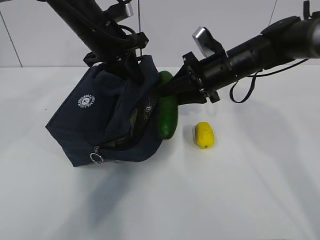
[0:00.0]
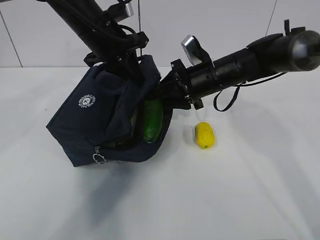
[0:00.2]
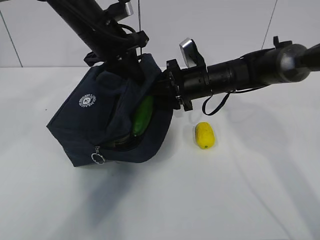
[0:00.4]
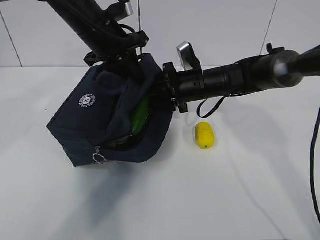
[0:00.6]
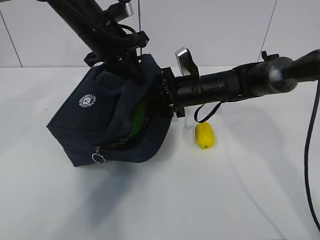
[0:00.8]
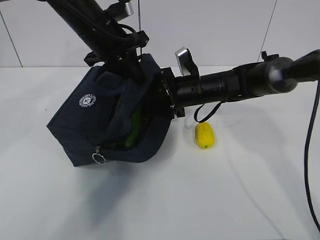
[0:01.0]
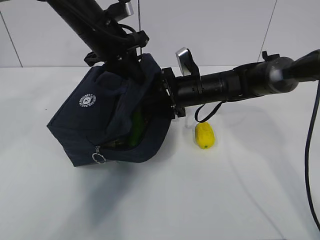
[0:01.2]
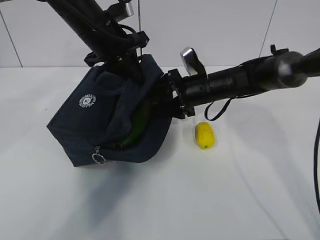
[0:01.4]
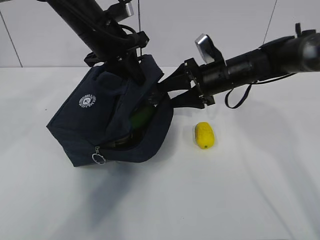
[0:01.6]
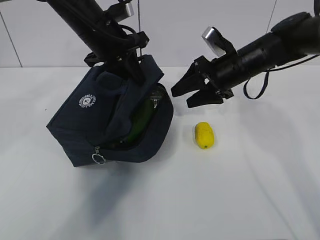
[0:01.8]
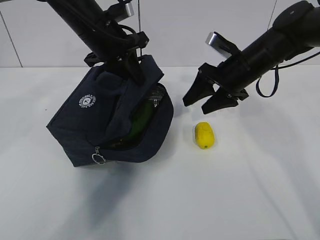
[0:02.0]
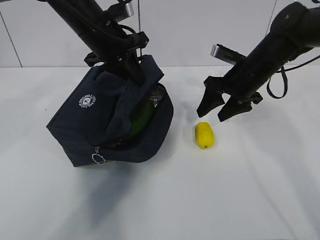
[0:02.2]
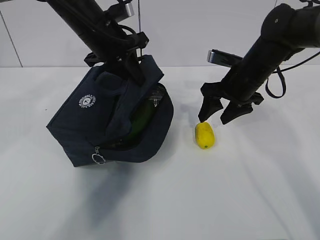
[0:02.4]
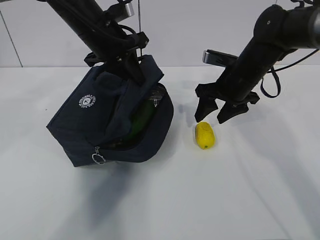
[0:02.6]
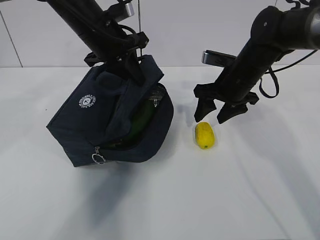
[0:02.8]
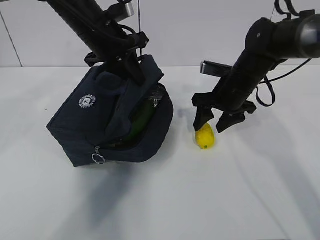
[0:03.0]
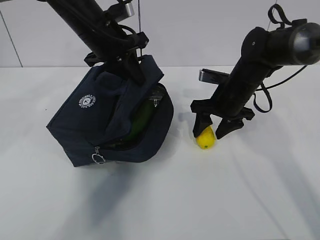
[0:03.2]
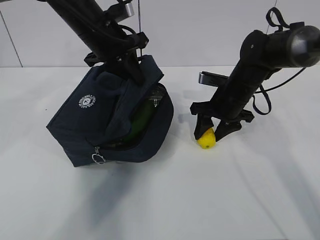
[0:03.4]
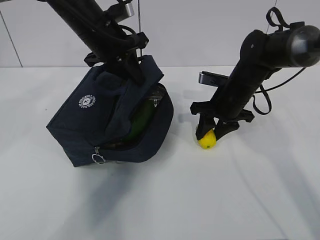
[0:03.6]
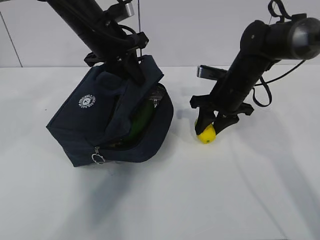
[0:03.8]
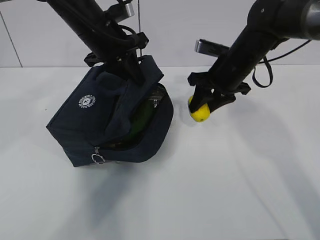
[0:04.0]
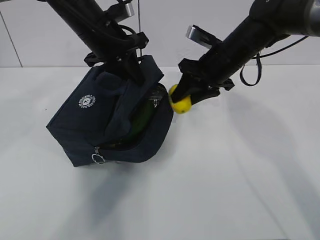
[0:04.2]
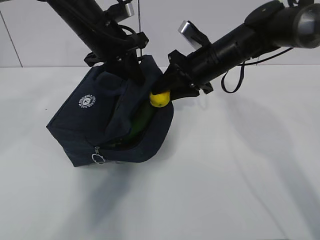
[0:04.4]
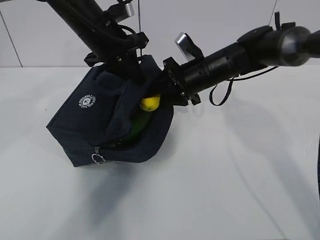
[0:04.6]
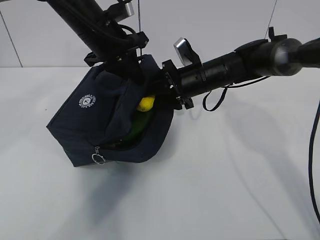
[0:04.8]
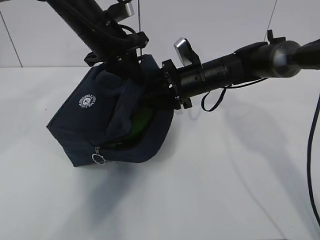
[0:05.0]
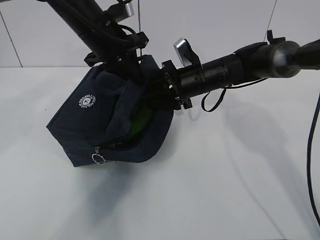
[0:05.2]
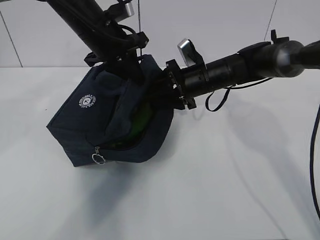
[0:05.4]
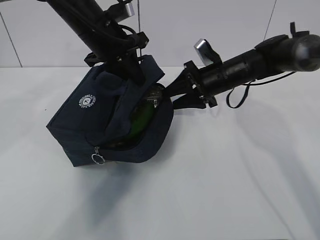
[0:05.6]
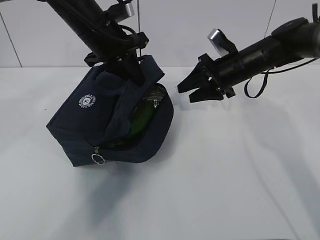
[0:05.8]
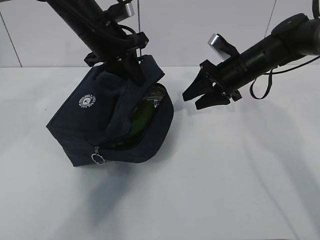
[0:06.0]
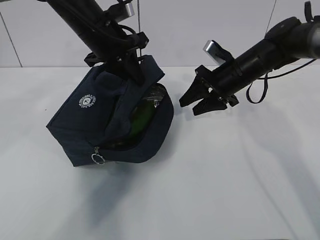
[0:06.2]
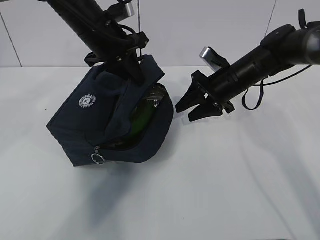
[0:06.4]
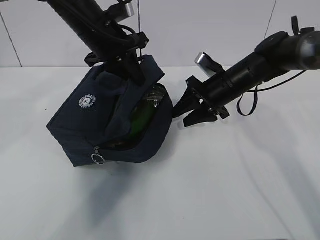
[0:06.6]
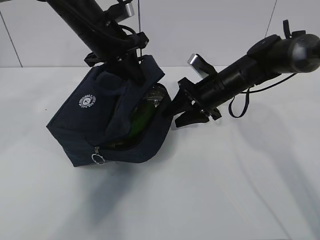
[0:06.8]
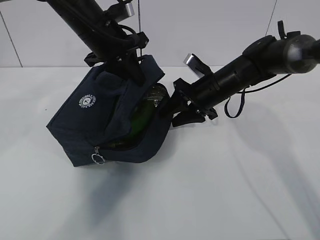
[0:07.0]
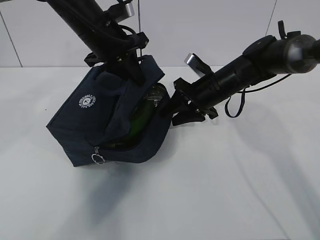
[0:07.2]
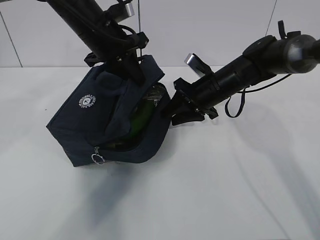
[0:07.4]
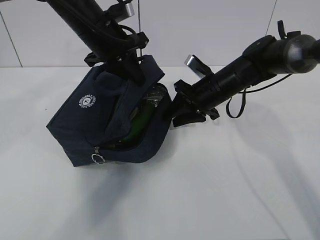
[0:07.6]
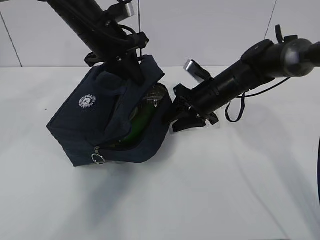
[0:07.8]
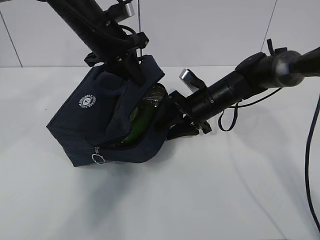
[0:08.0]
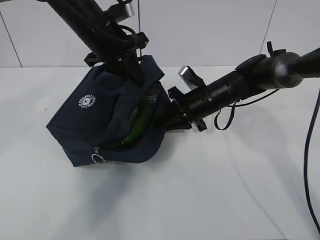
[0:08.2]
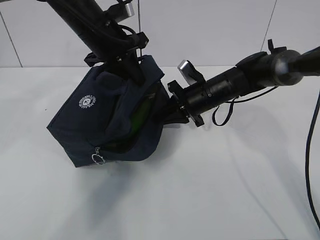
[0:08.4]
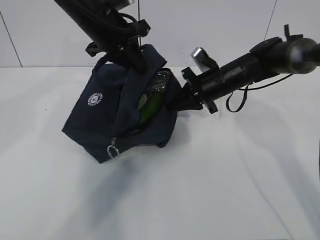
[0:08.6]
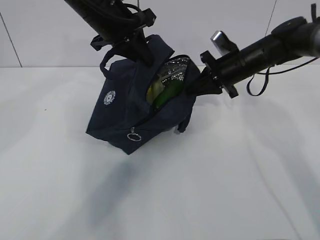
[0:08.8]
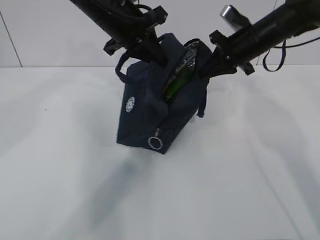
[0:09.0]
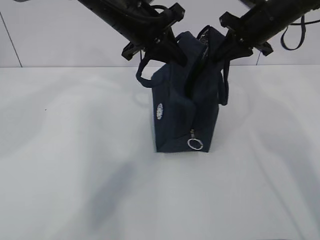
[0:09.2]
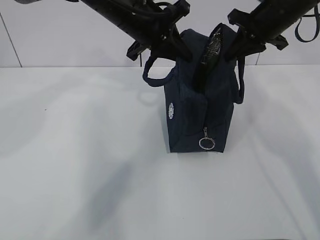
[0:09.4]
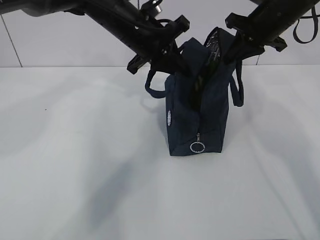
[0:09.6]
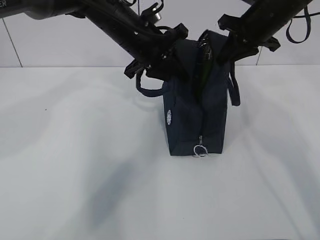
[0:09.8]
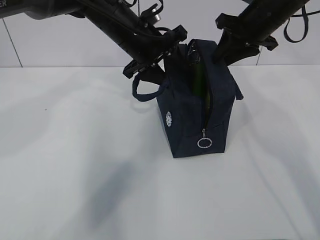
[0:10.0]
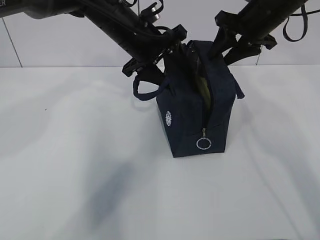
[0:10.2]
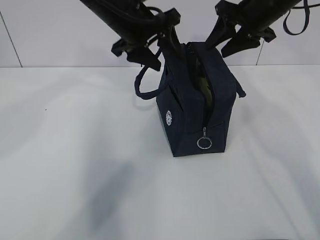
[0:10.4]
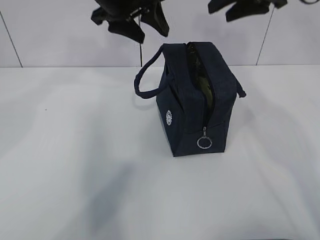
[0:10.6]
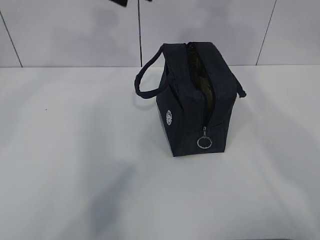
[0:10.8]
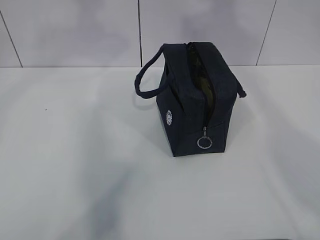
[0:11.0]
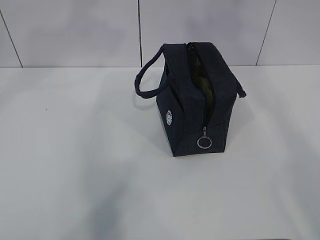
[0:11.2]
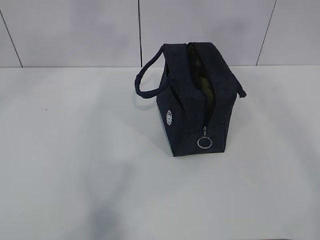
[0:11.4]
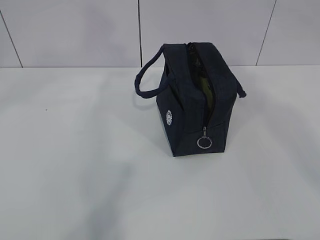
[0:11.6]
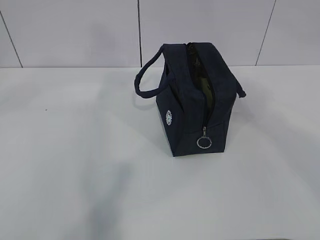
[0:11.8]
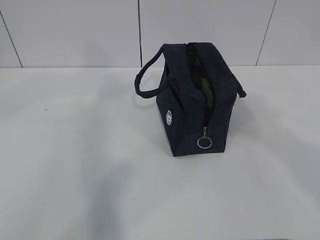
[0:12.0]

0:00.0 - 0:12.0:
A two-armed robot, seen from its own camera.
Step, 0:00.4 - 0:02.6: Grab the lunch bag with your right hand.
Step, 0:02.8 - 0:04.4: Stand the lunch bag upright with your right hand.
0:00.0 - 0:01.6: The right gripper opens up.
0:03.0 - 0:04.4: The right gripper goes some 5 cm upward.
0:04.4 - 0:06.0: The right gripper goes roughly 5 cm to the right.
0:06.0 - 0:07.6: The right gripper changes place by approximately 5 cm.
0:07.6 - 0:09.0: The right gripper shifts about 10 cm upward and to the right, and closes its fingers.
0:09.0 - 0:10.4: The left gripper opens; the right gripper heads upward, covering approximately 5 cm, and opens.
0:10.4 - 0:12.0: The right gripper heads backward, covering roughly 40 cm. Meanwhile the left gripper heads backward and upward, covering about 25 cm.

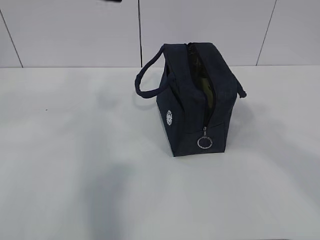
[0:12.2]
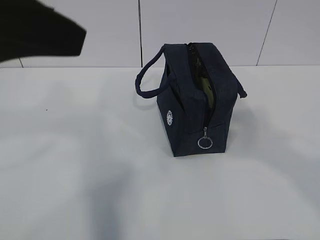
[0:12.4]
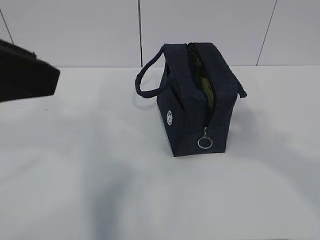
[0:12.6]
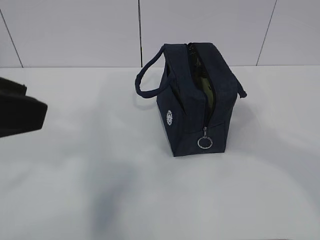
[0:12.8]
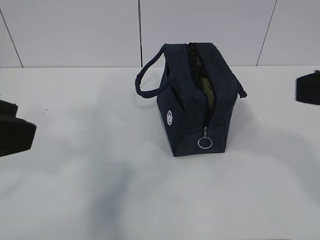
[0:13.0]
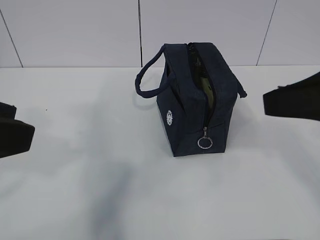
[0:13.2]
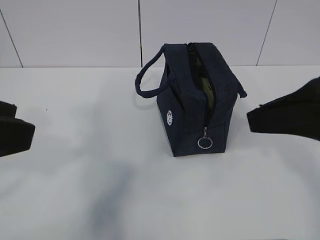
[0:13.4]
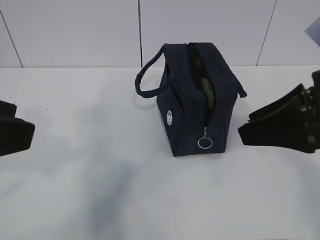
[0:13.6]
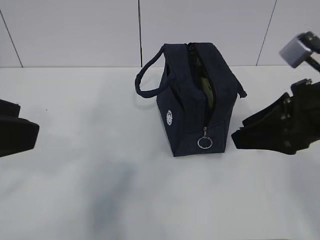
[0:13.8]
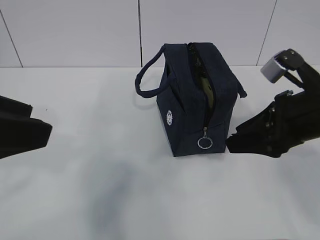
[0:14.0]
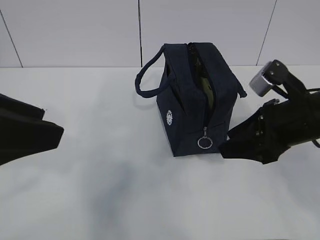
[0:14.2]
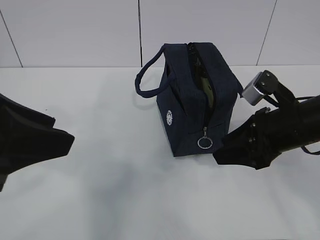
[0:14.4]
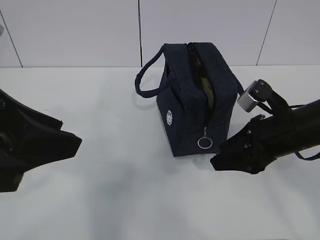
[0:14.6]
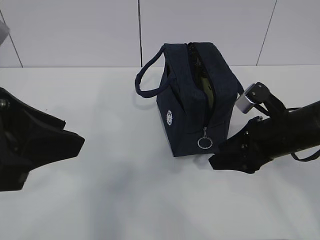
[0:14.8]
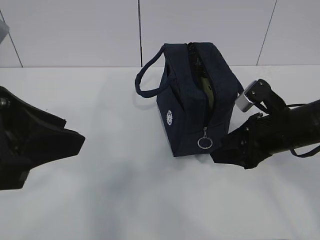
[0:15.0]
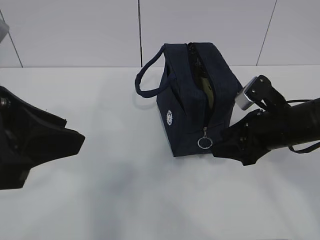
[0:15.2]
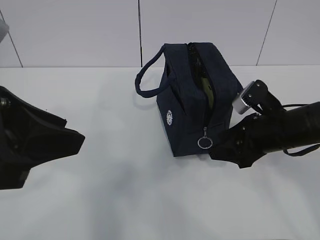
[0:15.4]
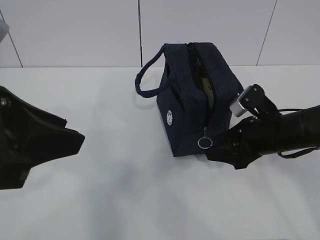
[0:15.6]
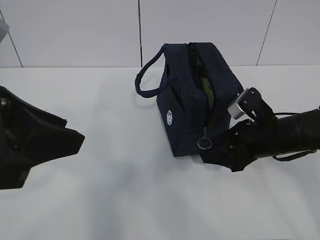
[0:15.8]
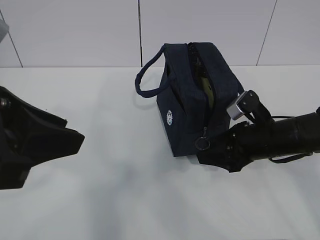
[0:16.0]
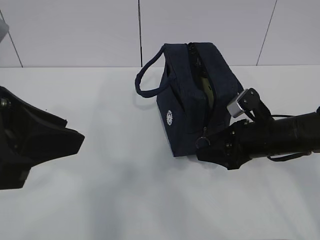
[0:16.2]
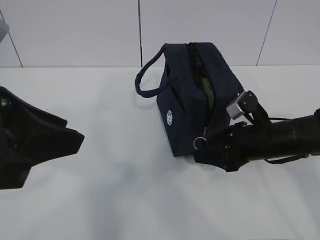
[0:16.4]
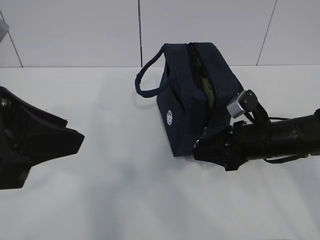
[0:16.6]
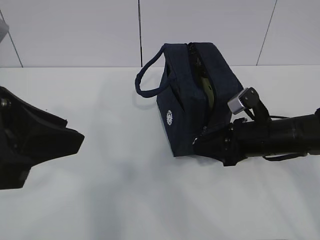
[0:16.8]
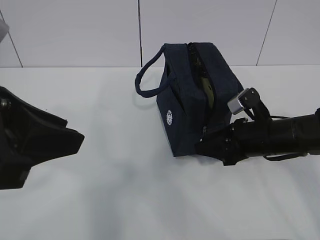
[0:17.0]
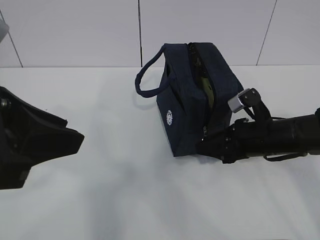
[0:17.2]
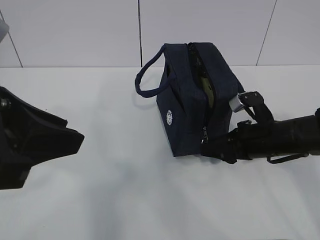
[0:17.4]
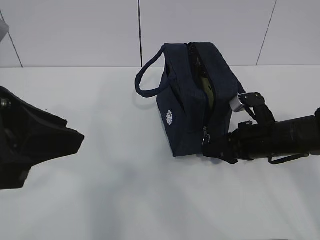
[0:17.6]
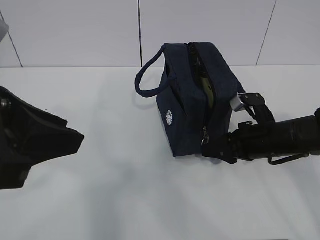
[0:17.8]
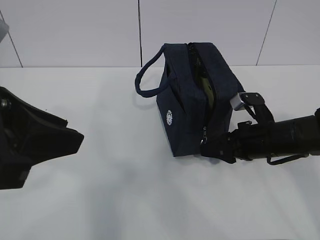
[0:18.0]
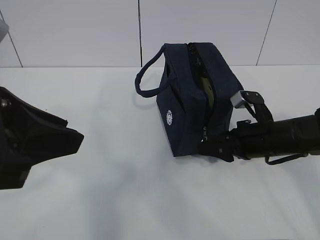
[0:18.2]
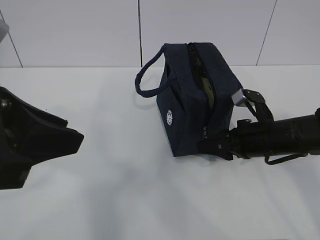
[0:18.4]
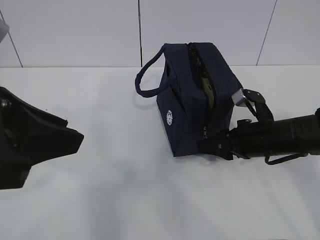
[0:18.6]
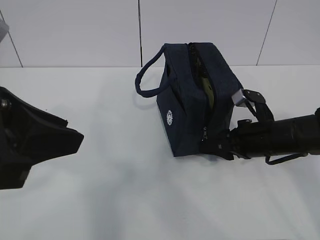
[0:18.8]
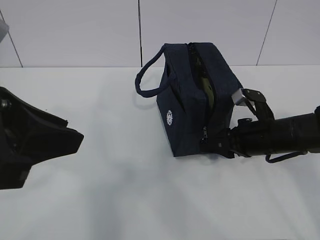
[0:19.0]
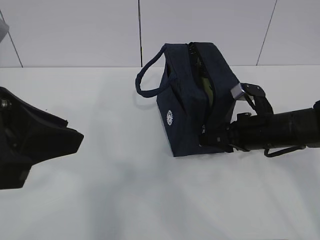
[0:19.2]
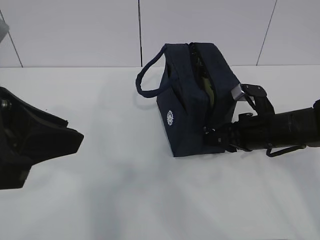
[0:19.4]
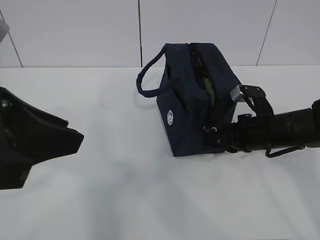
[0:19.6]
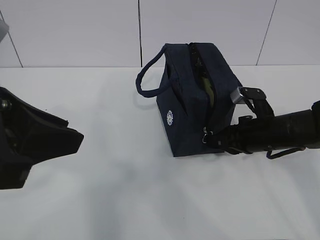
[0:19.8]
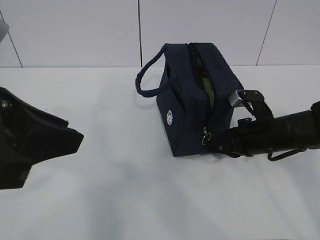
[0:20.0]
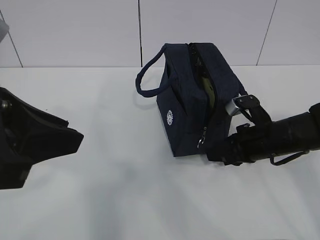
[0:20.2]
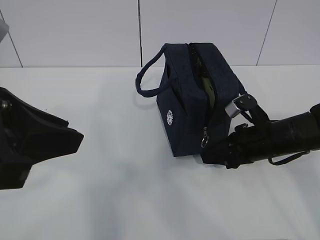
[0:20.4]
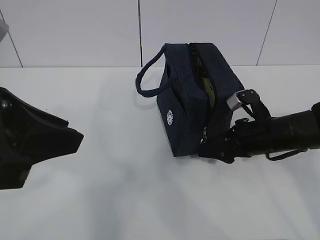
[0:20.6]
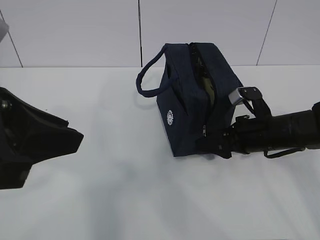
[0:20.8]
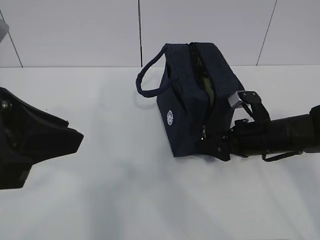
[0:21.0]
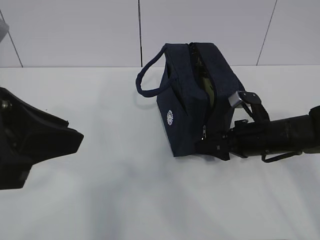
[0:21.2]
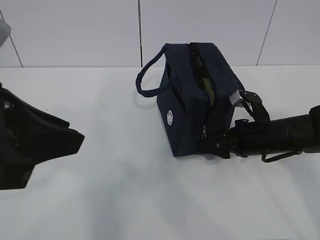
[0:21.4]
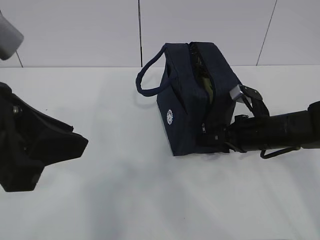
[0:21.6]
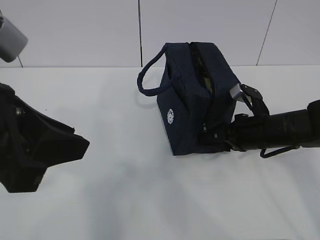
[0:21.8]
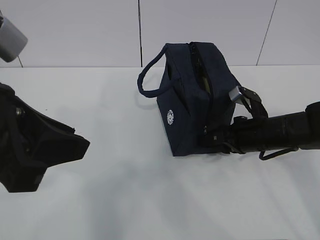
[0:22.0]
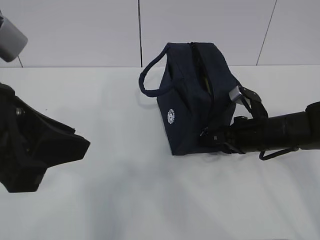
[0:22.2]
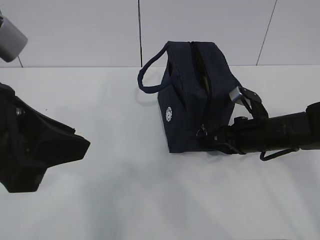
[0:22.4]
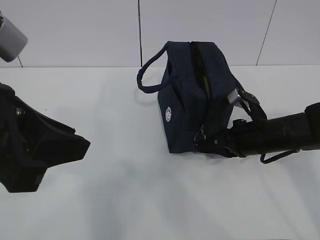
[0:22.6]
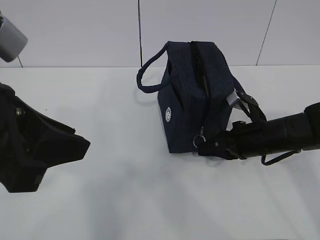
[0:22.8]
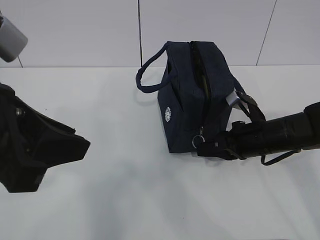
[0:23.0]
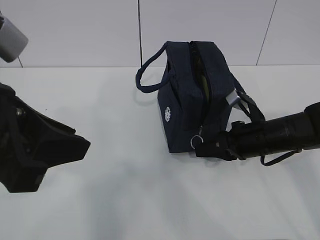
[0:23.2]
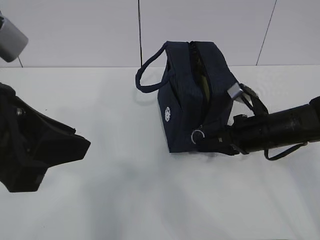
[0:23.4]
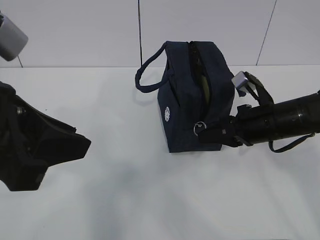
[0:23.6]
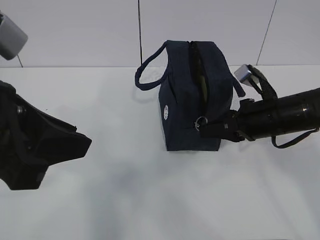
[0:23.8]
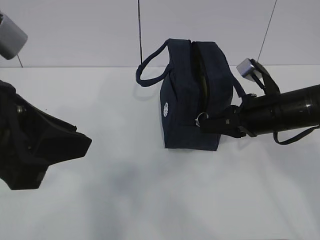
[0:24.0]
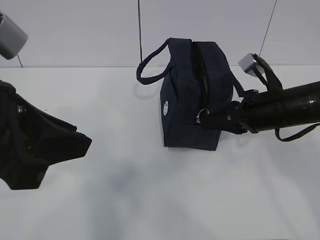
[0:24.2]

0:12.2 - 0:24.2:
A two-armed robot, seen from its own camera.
0:12.2 - 0:13.8: The left gripper moves downward, to the left and backward, some 10 cm. Meanwhile the right gripper is displaced forward and downward by approximately 20 cm.
0:13.8 - 0:15.2: The right gripper is displaced downward and forward by approximately 10 cm. The left gripper ends up about 5 cm from where it was.
0:15.2 - 0:16.6: The grippers stay close to where they were, moving slightly.
0:16.6 - 0:18.2: There are only small adjustments of the grippers.
0:18.2 - 0:19.8: The right gripper closes.
0:19.8 - 0:21.2: The right gripper opens up.
0:21.2 - 0:22.6: The right gripper closes up.
0:22.6 - 0:24.2: The right gripper goes some 10 cm upward.
